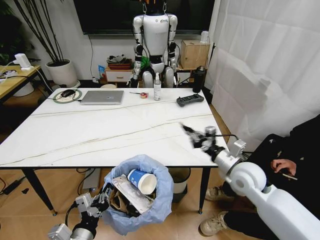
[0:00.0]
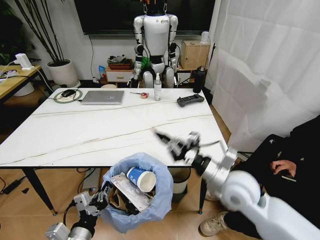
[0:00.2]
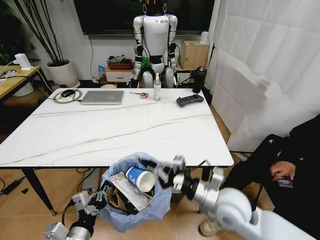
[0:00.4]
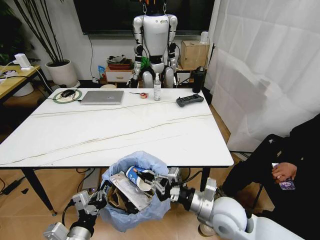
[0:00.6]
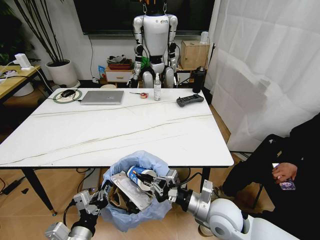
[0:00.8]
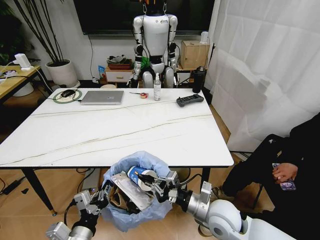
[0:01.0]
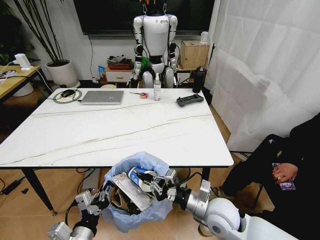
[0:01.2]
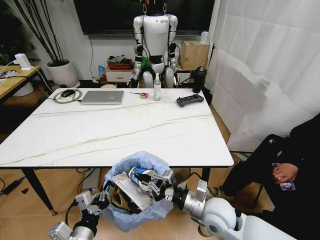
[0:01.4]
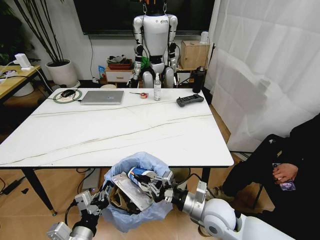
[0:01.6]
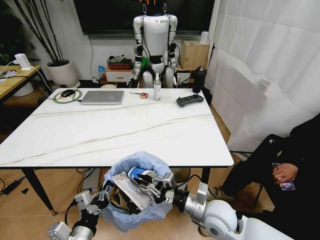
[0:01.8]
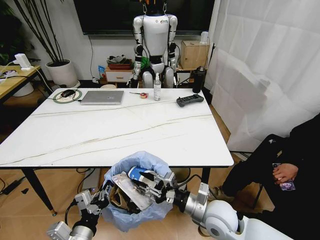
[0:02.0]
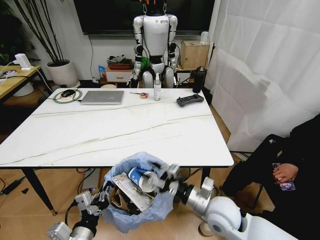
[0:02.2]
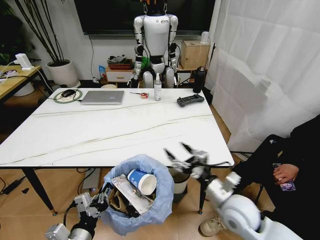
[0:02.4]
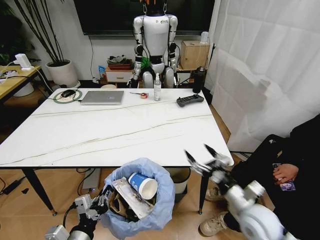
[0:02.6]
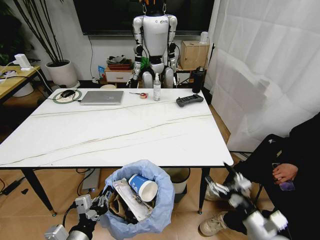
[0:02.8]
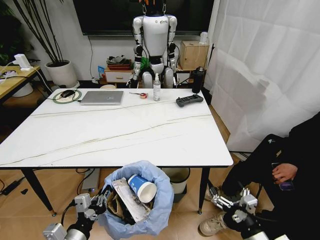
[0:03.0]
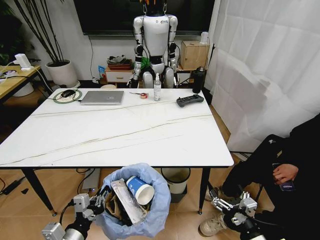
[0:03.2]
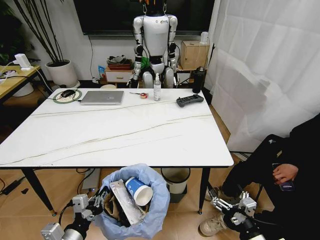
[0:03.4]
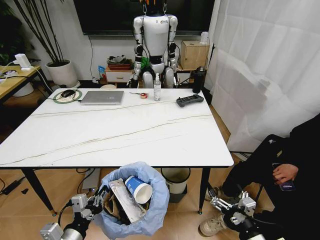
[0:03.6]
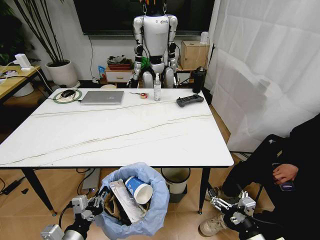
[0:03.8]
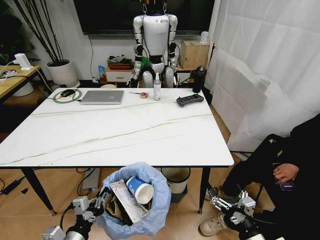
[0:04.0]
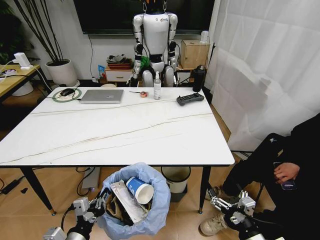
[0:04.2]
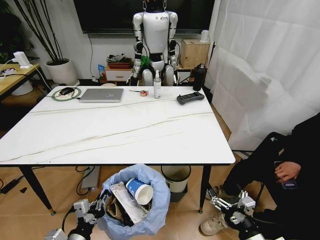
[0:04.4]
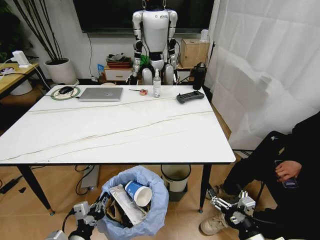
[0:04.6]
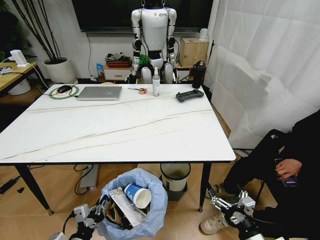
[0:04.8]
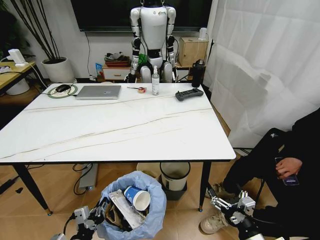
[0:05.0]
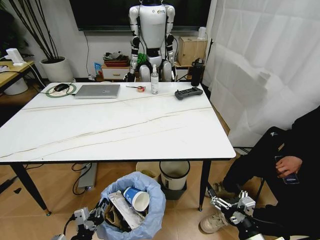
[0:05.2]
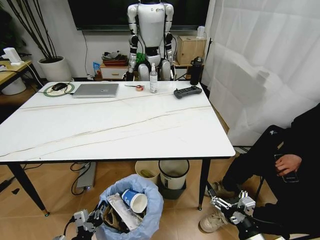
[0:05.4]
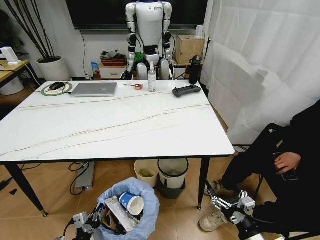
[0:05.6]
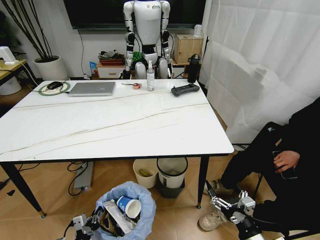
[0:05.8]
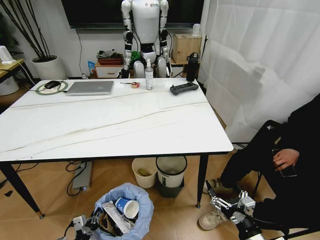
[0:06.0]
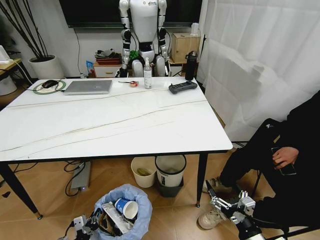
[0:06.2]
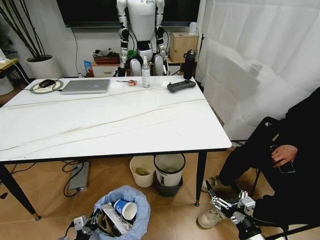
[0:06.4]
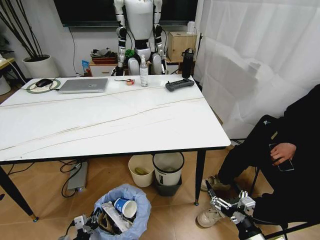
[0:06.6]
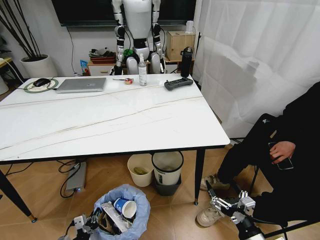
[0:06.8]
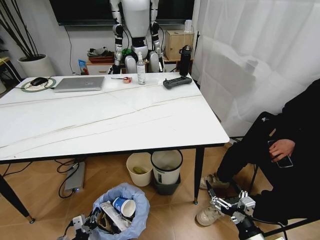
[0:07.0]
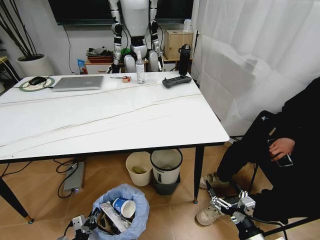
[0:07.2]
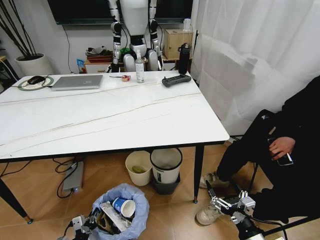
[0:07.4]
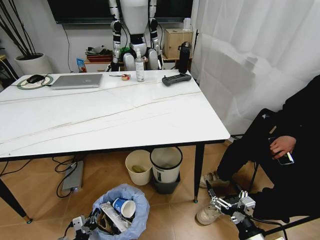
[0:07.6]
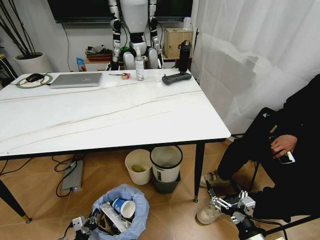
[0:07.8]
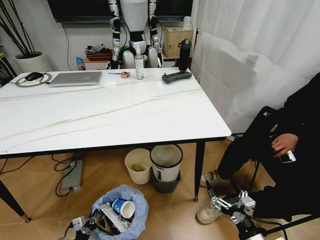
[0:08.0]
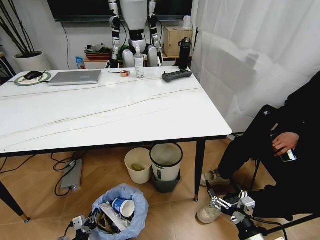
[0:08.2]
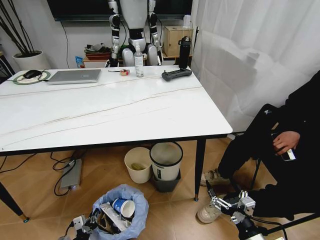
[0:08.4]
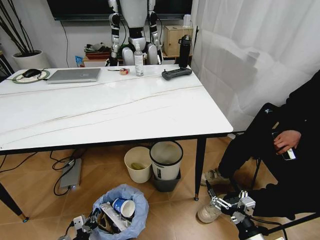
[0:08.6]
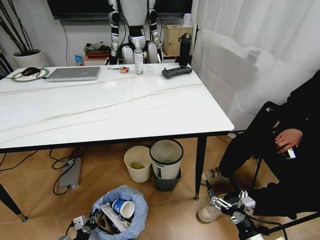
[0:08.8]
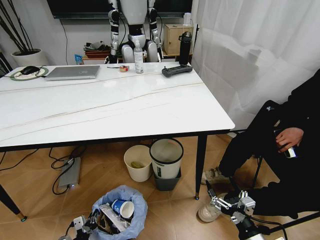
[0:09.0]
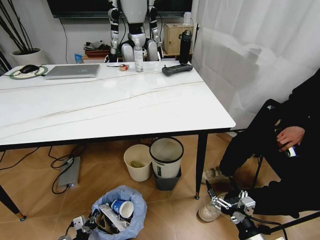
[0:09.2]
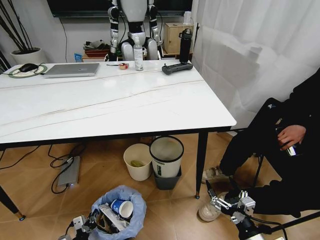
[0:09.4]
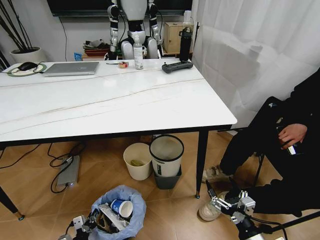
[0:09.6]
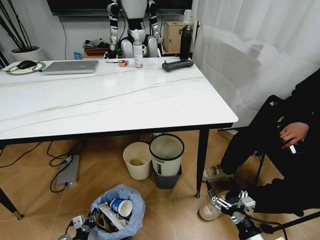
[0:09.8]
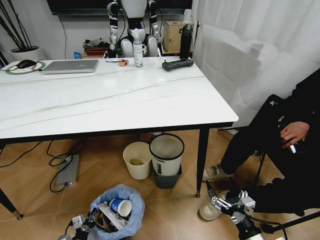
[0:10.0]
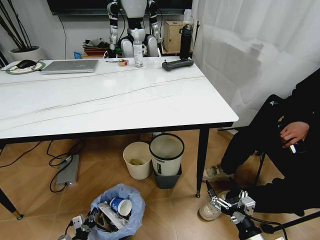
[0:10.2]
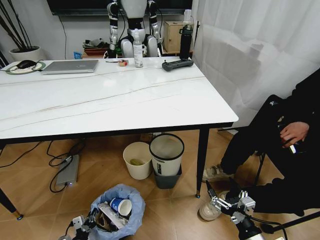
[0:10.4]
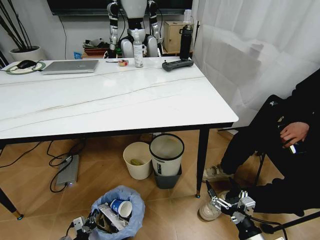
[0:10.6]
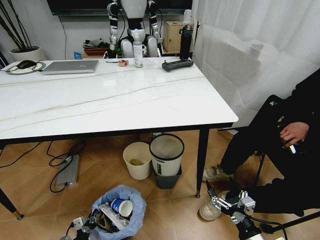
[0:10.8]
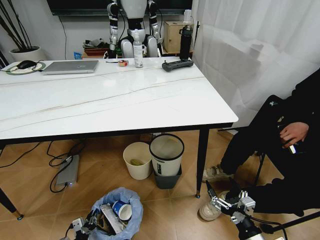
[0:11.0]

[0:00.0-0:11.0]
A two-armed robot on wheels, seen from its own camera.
Task of the whole recording: Pick up the trash bin and place the trash from the table into it.
0:00.0 to 0:01.6: The right gripper shifts some 15 cm to the left, backward and downward.
0:01.6 to 0:03.2: The right gripper heads backward and to the right, covering roughly 20 cm, and opens its fingers.
0:04.8 to 0:06.2: The left gripper moves downward, about 15 cm.
0:09.4 to 0:11.0: The grippers stay close to where they were, moving slightly.

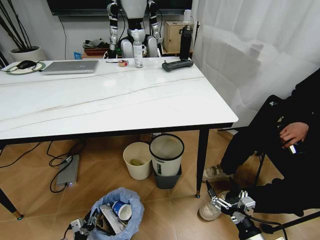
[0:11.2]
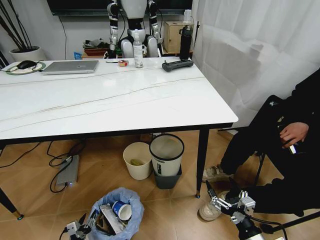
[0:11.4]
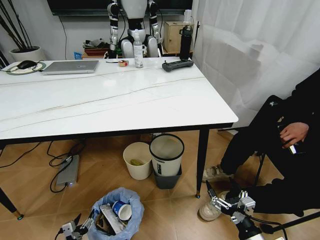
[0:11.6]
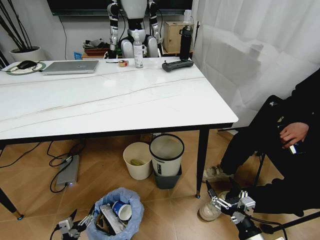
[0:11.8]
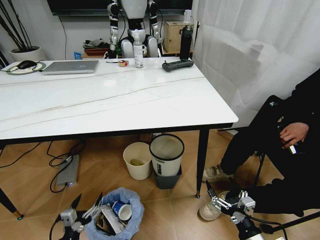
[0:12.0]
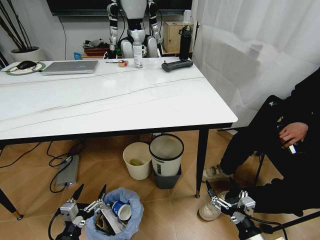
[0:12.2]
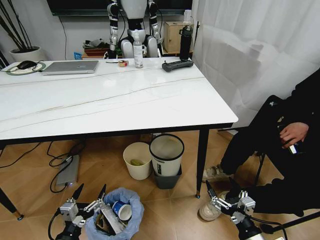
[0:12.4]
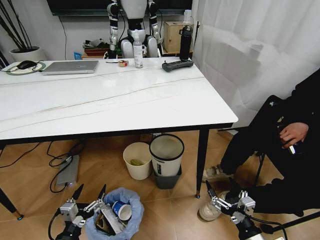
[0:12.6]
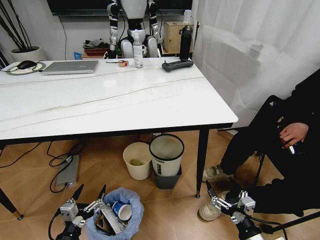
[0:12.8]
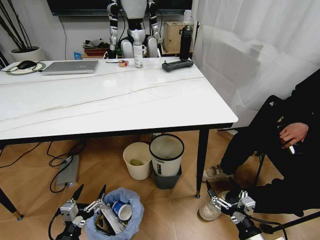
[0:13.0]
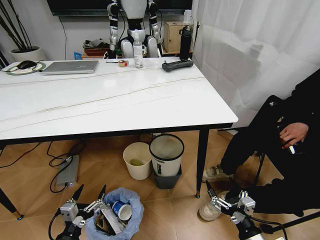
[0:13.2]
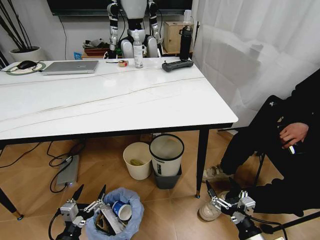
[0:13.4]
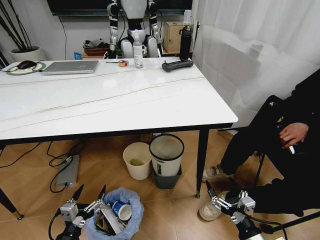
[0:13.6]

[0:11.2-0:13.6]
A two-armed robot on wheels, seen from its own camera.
Task of the whole recording: Pick up the trash bin and place the trash from the table into it.
0:11.2 to 0:12.4: The left gripper heads upward, covering about 20 cm, and opens.
0:12.4 to 0:13.6: Neither gripper changes place.
